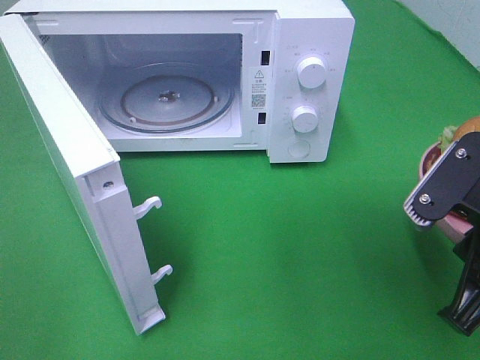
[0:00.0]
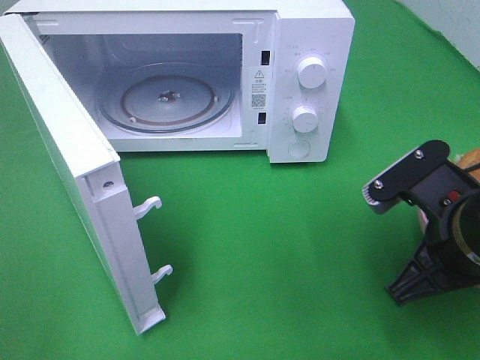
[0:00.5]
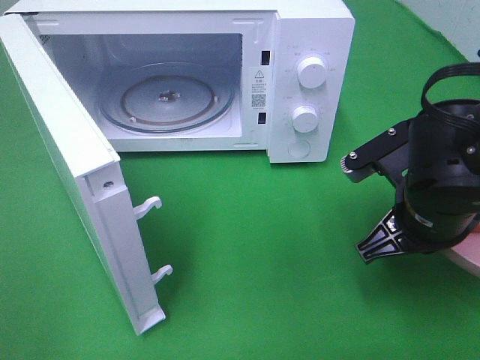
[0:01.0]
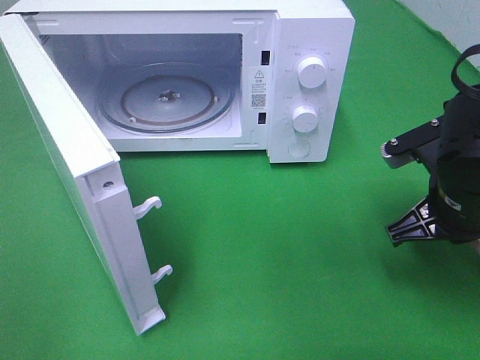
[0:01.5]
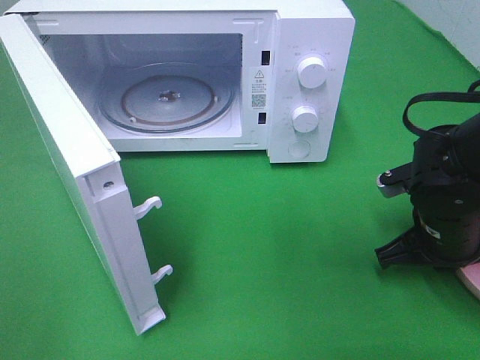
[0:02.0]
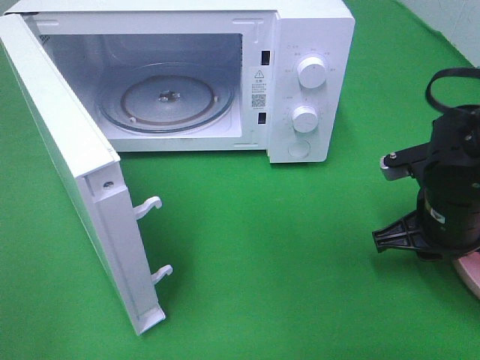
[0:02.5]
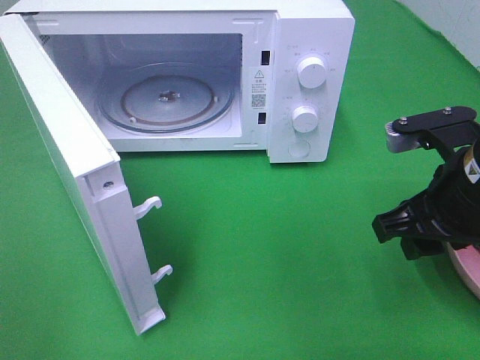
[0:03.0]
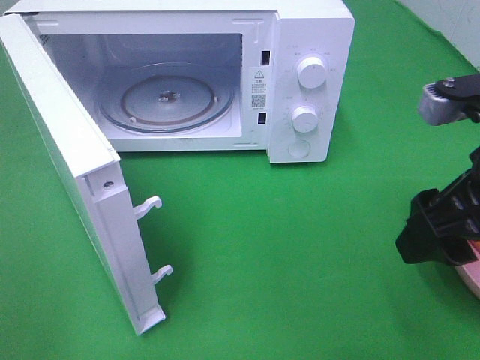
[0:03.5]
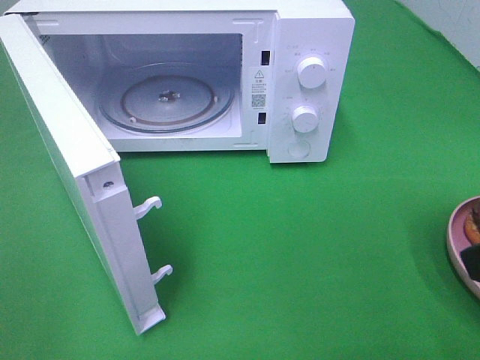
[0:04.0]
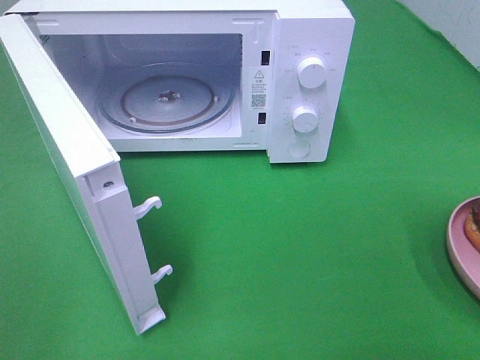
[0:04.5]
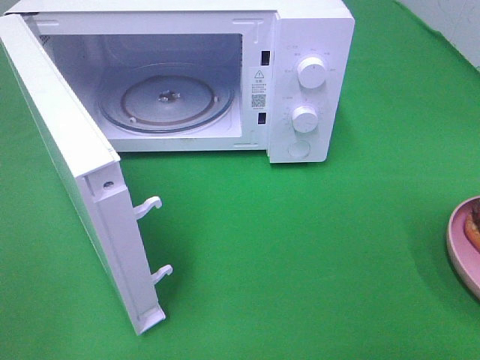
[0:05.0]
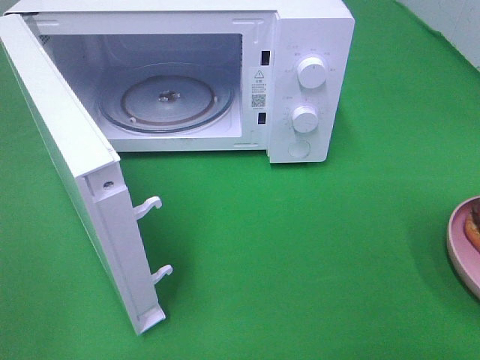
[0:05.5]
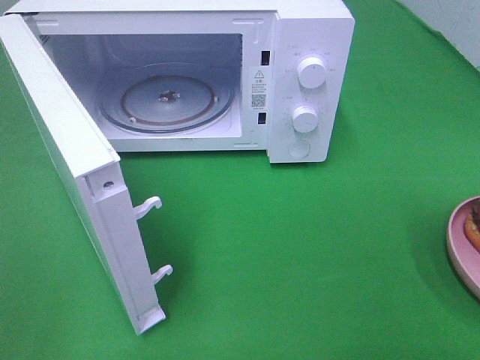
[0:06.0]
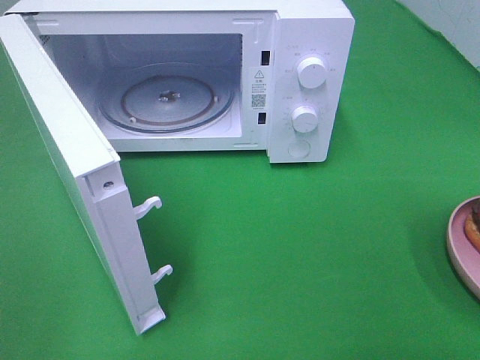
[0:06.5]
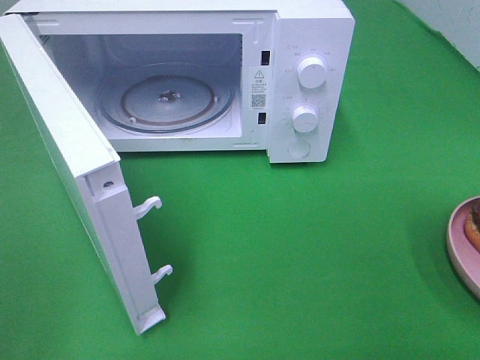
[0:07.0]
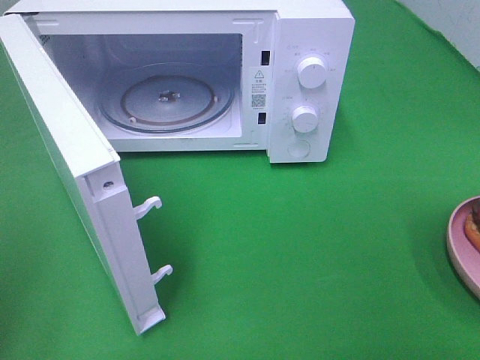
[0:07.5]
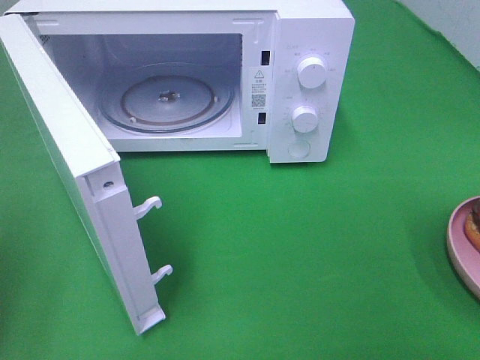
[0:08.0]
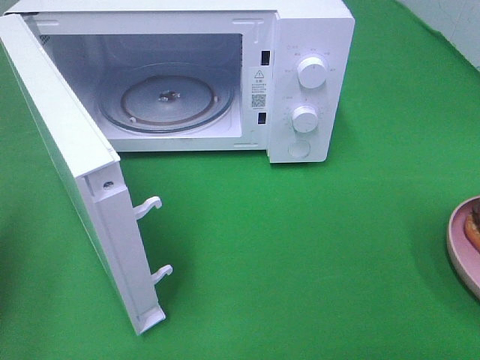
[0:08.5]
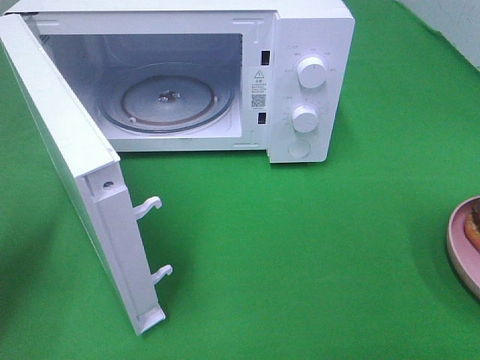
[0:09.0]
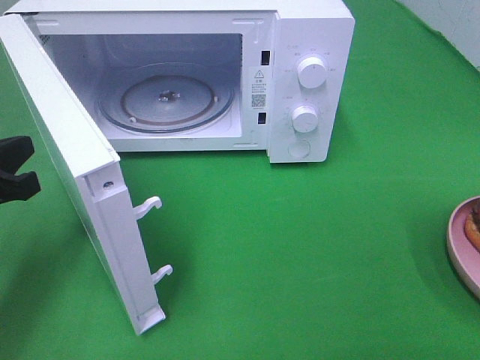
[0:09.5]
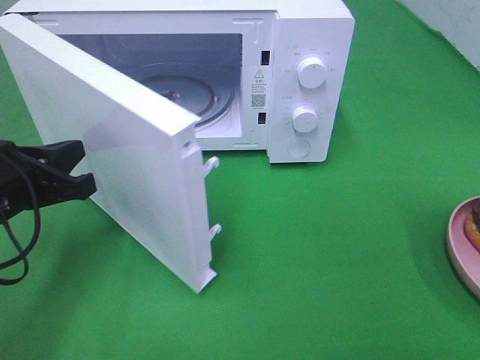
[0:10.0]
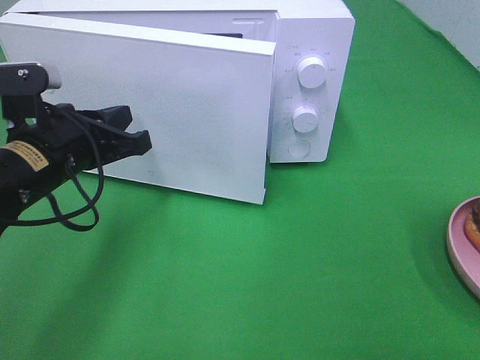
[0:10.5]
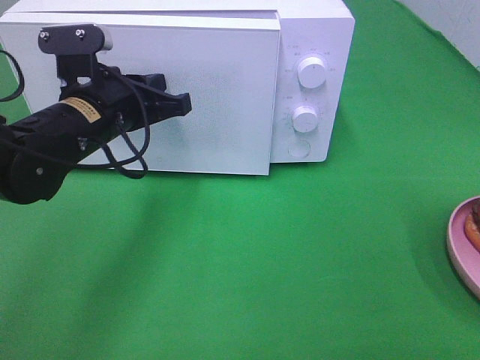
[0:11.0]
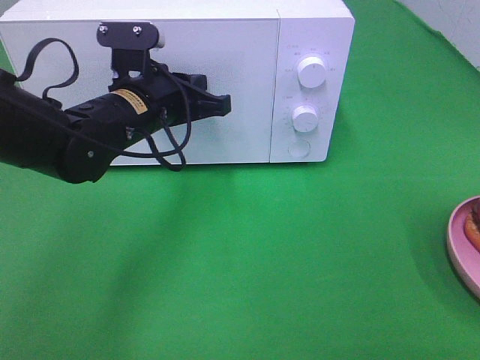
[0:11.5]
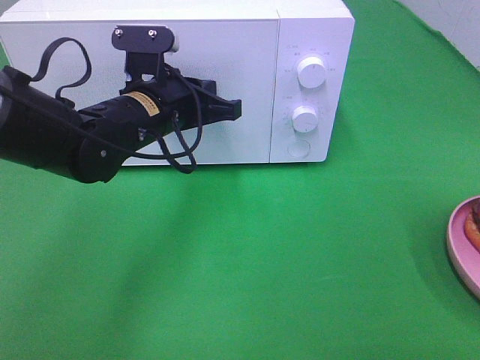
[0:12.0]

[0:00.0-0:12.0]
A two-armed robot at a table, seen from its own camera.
Task of the whole recording: Heat the burger.
Step, 0:00.0 to 0:03.0: Right hand: place the plate on the table.
0:00.0 to 0:02.0: The right gripper shifts roughly 15 cm forward and downward.
0:02.0 to 0:04.0: The right gripper goes roughly 25 cm upward and backward, and opens its fingers.
0:08.0 to 0:10.0: The left gripper is displaced to the right, downward and forward by roughly 20 cm.
0:10.0 to 0:12.0: The left gripper moves to the right and forward, some 15 cm.

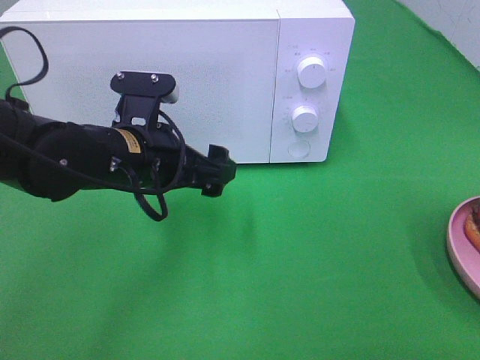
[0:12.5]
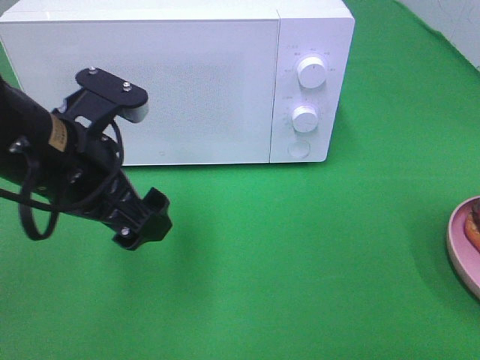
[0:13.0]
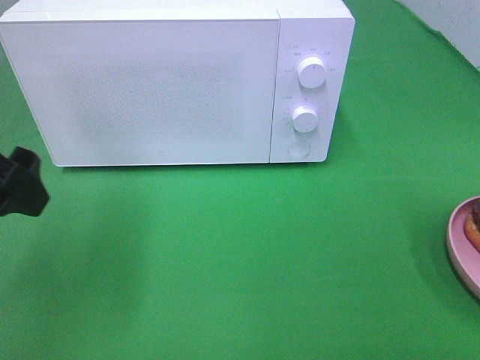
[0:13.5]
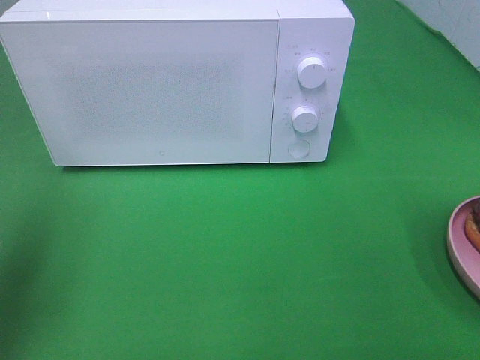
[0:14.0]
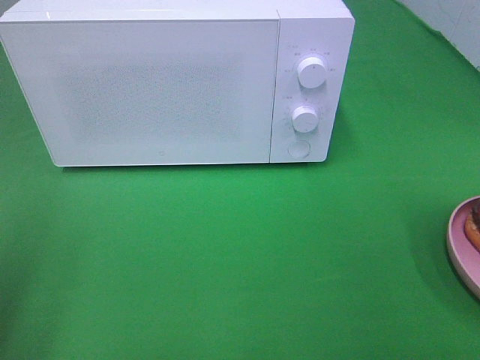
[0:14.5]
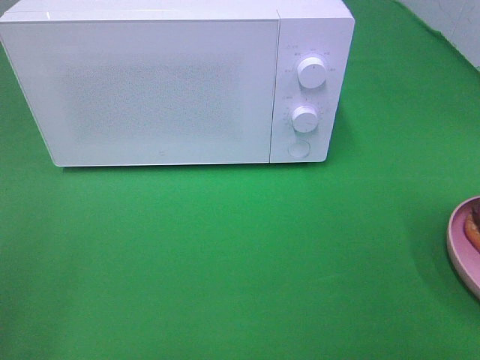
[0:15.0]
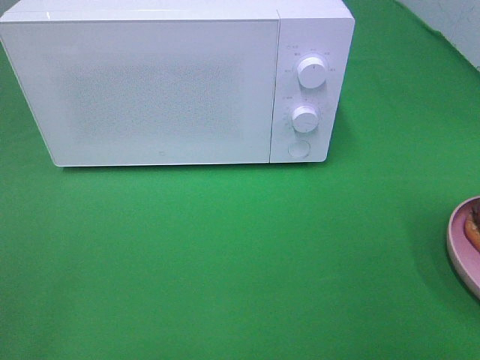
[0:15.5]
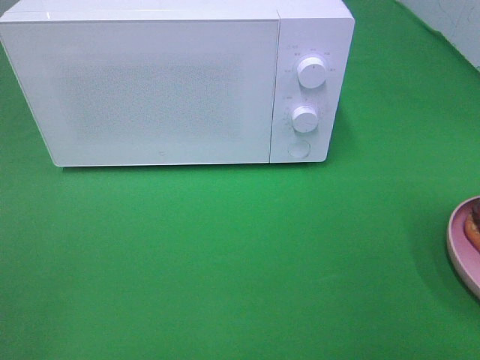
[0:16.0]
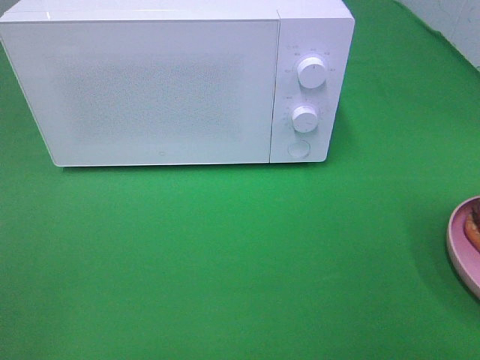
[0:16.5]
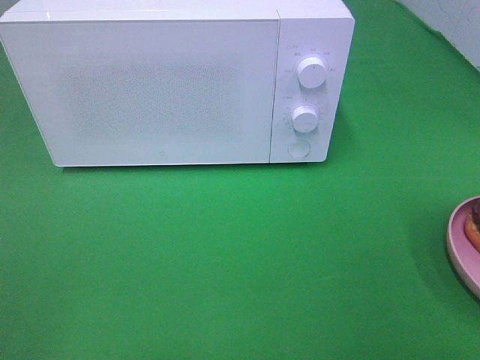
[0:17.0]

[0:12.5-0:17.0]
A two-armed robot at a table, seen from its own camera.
Task of the whole recording: Heat the burger.
0:12.5 to 0:14.5: The left gripper travels to the left, backward and upward by some 30 cm.

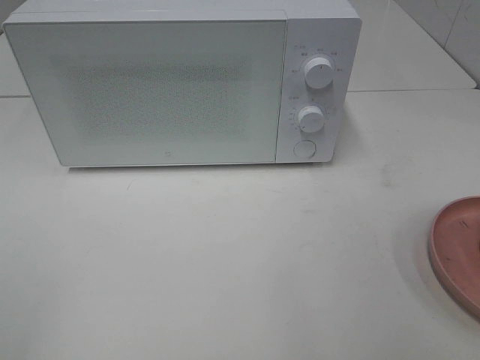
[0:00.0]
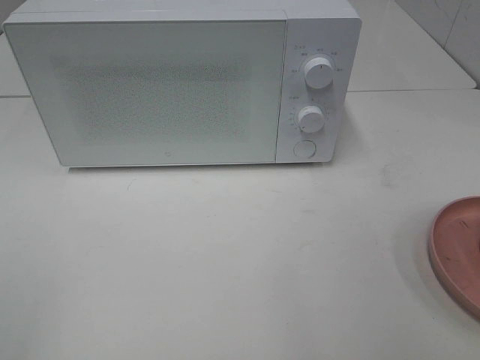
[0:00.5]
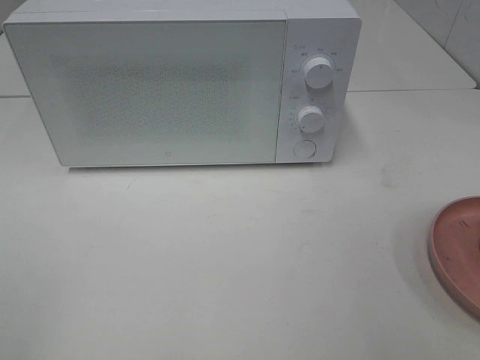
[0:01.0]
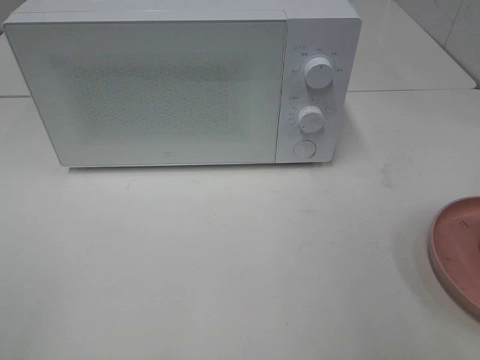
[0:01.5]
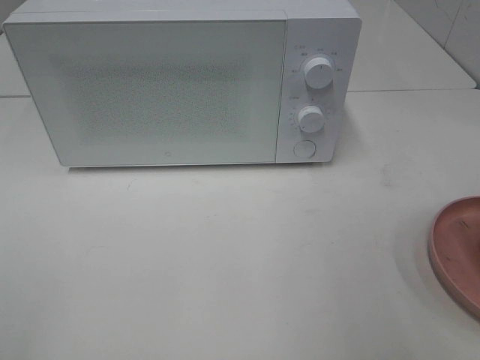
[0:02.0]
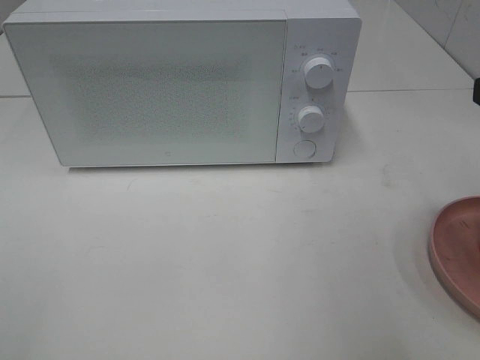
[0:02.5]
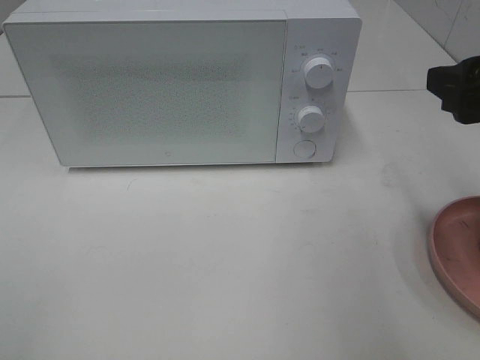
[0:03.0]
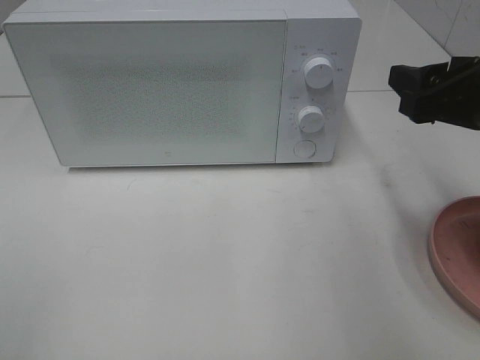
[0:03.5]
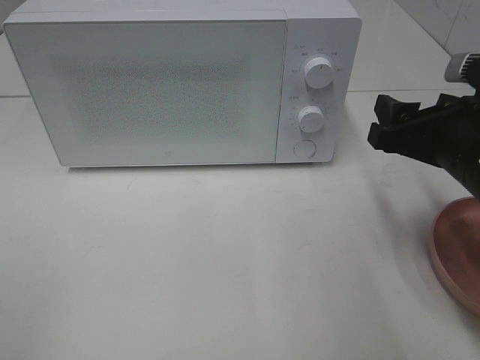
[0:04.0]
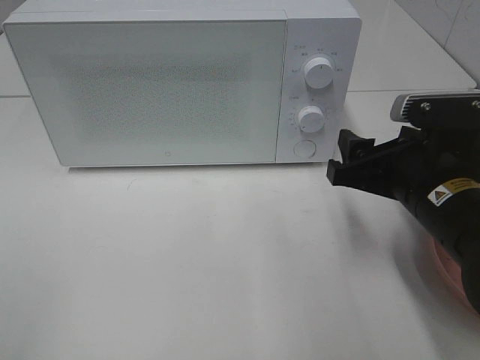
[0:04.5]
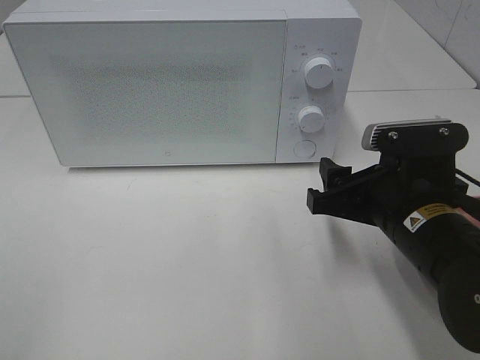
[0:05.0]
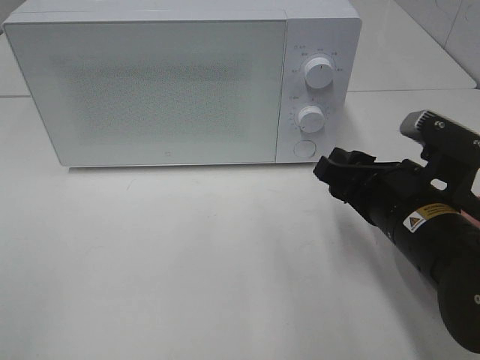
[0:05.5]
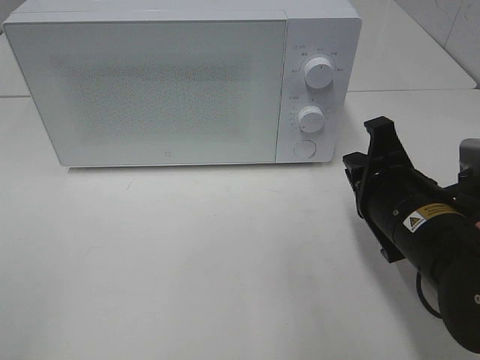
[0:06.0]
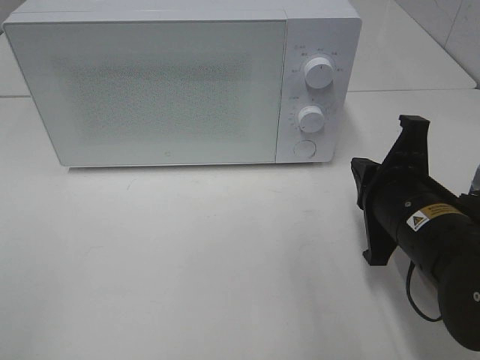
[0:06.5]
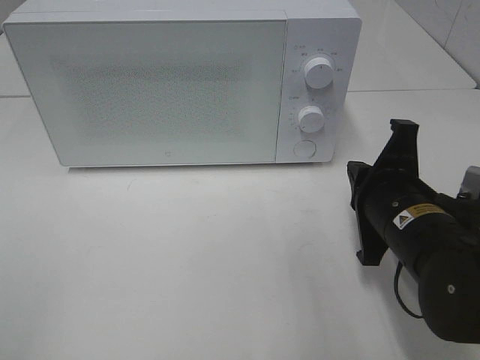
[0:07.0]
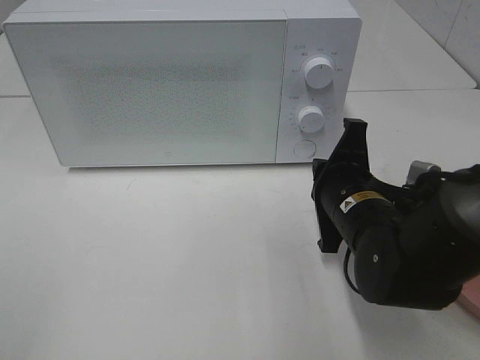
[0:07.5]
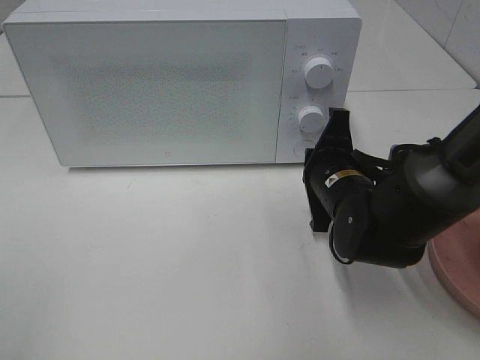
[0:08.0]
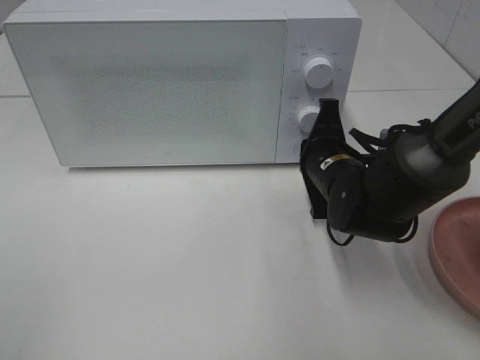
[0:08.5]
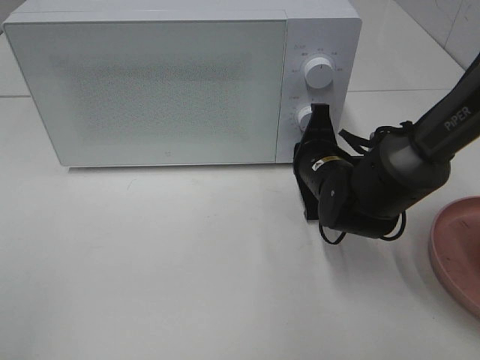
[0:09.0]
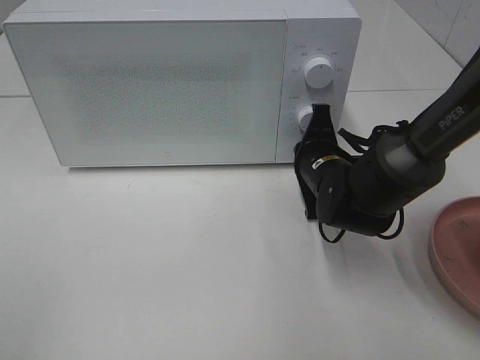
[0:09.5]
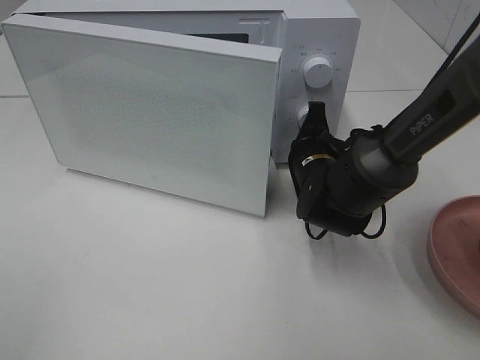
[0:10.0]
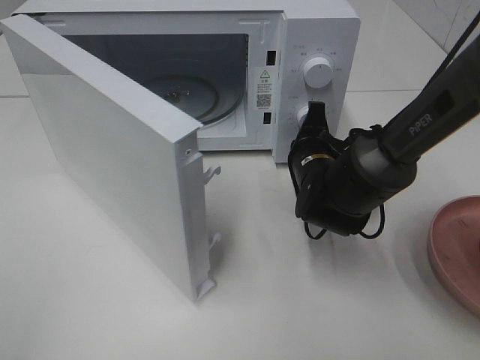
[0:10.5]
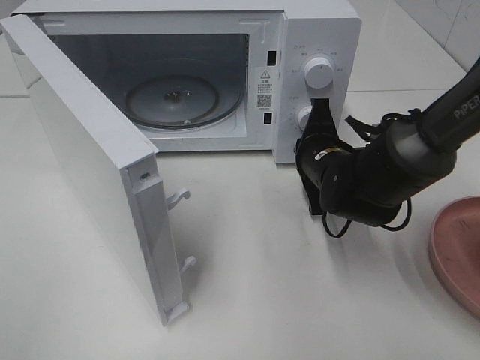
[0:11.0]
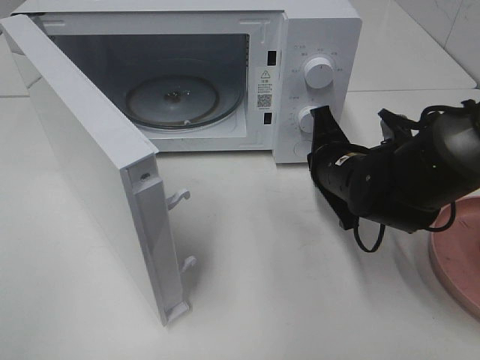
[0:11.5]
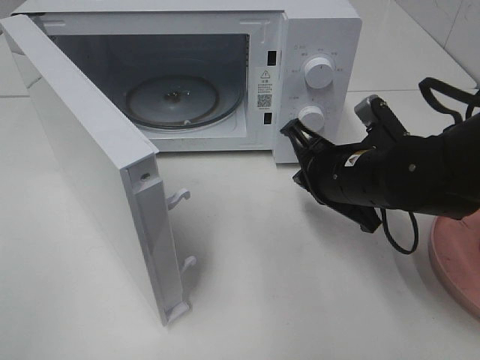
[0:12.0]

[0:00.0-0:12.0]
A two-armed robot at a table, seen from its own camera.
Task of the whole recording: Heat the burger.
Step, 0:00.0 to 0:11.5: Right hand: press the switch.
0:02.0 to 0:04.0: The right gripper travels forward and downward by some 15 cm.
0:04.0 to 0:06.0: The right gripper moves to the left, roughly 5 cm, and closes up.
0:06.0 to 0:08.0: The right gripper goes some 10 cm forward.
0:08.0 to 0:10.0: The right gripper is displaced forward by roughly 5 cm.
0:10.0 to 0:12.0: The right gripper heads backward and upward, covering approximately 10 cm.
